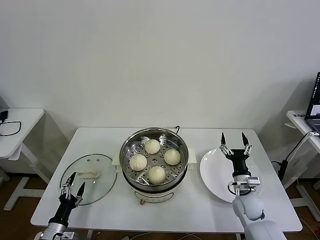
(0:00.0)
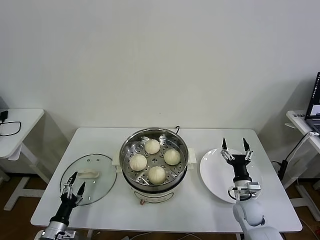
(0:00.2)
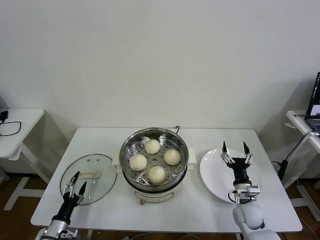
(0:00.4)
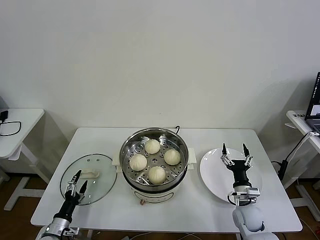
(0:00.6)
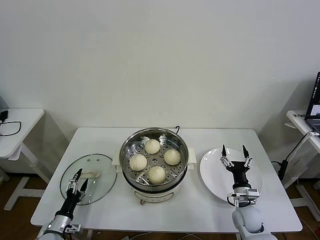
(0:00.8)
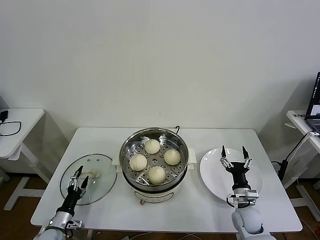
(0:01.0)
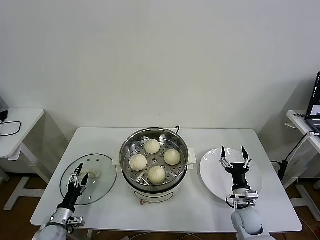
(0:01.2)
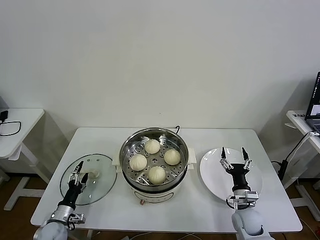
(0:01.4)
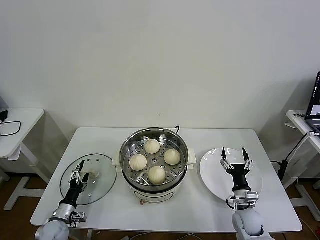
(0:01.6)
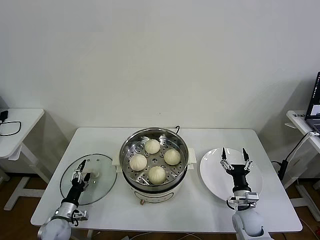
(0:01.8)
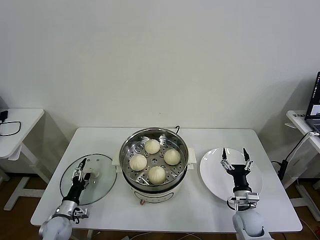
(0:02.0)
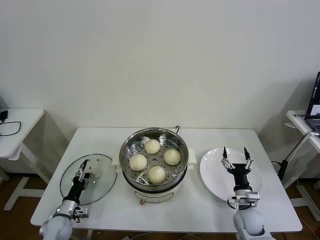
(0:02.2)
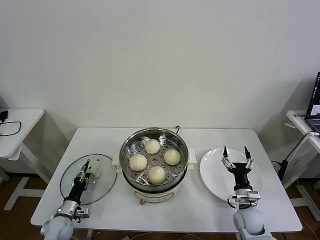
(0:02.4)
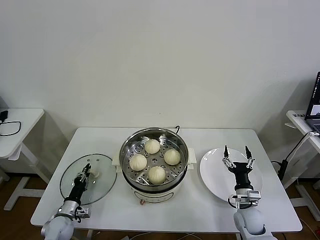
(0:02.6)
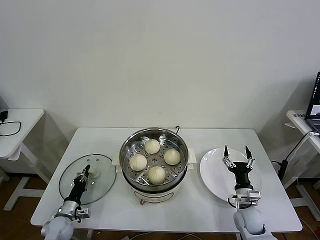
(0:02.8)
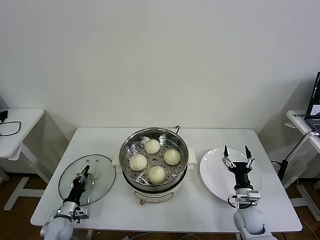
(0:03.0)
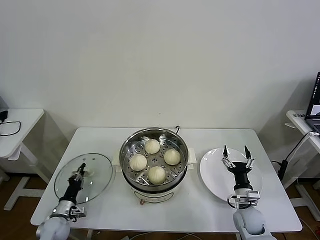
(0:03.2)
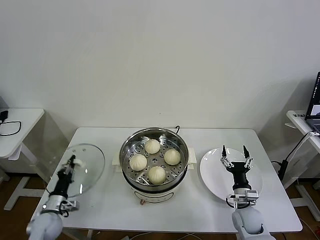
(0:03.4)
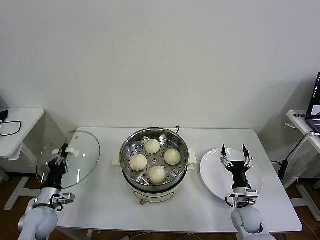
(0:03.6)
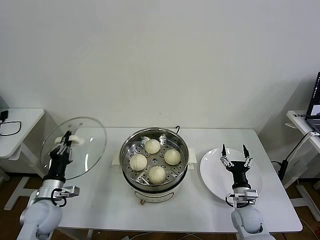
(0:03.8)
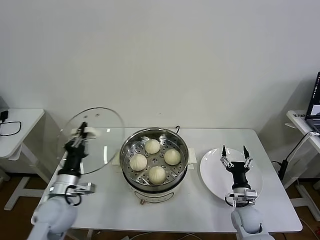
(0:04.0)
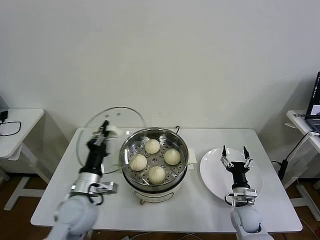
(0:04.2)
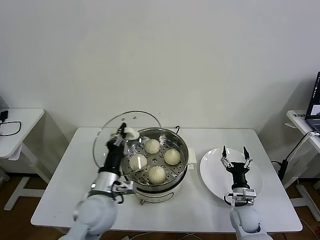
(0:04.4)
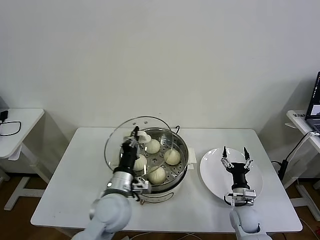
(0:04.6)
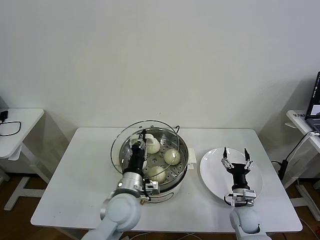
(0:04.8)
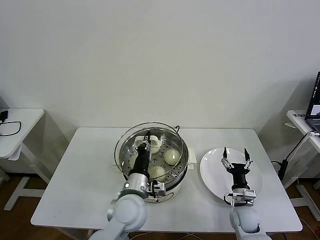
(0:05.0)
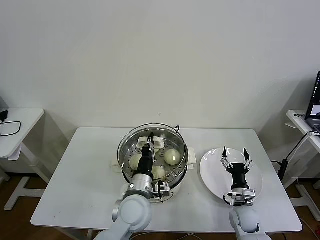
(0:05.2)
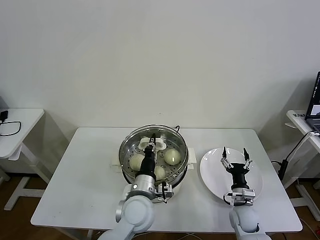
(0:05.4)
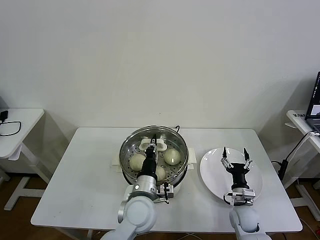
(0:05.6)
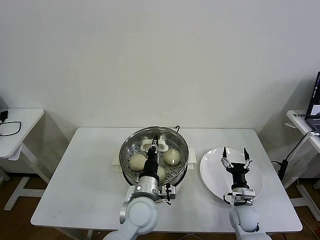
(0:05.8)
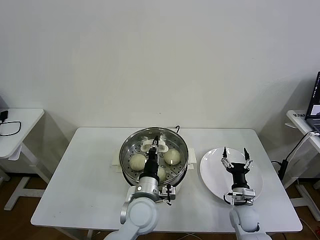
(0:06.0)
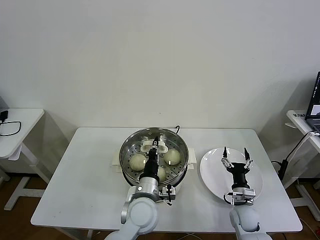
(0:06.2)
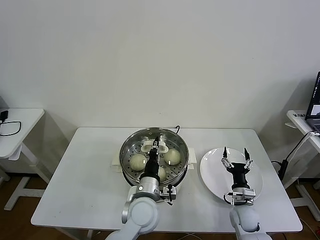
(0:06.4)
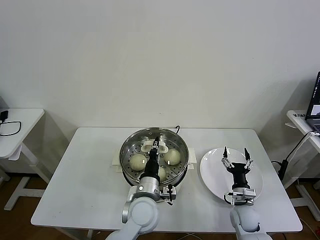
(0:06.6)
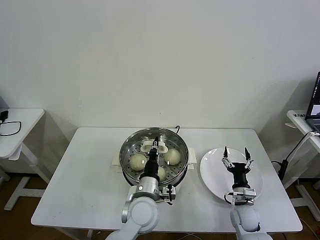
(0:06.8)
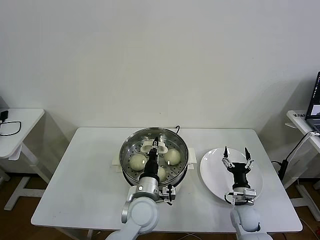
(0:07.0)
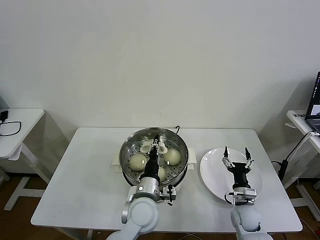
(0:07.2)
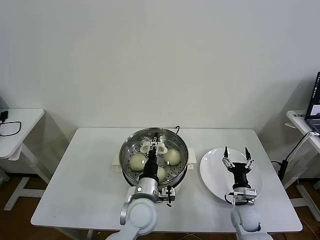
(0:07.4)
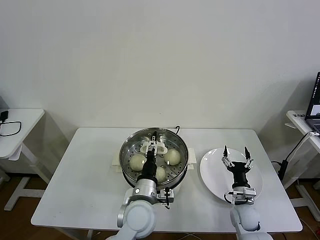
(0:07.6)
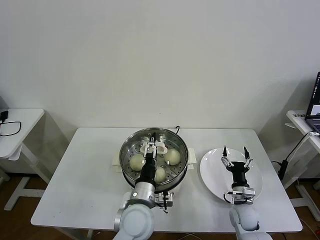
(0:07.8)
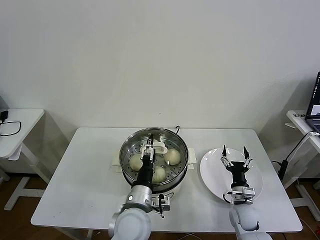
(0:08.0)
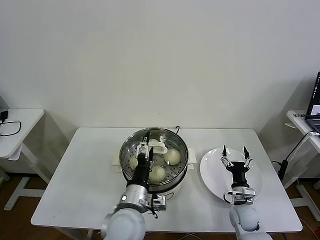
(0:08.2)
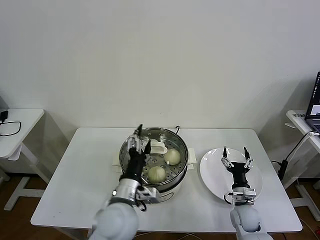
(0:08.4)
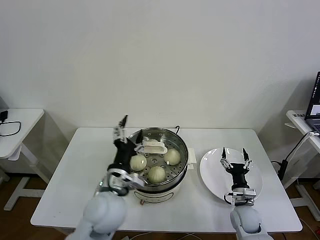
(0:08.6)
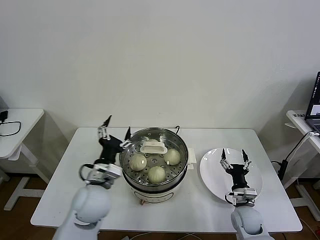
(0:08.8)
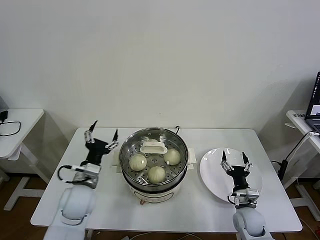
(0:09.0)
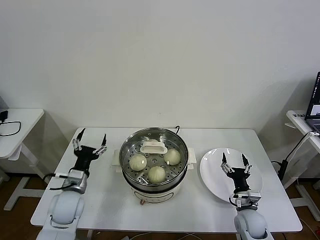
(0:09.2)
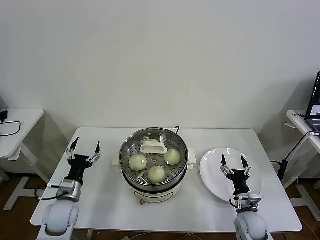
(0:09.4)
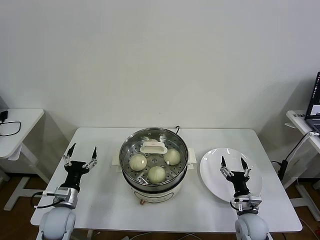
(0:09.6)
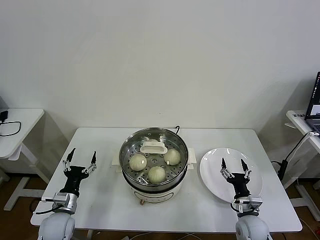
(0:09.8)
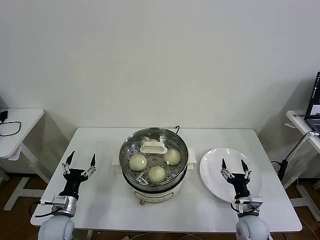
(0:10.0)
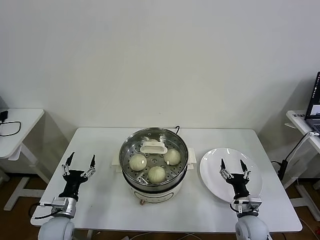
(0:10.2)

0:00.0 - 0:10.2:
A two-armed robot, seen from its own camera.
Task of the whole recording: take steamed baozi put them in steamer then cover it.
Step, 0:00.0 - 0:03.0: Grasp the pot lid with left gripper.
Step, 0:03.2 - 0:07.6: Place the pot lid on the steamer with left gripper.
0:00.0 - 0:01.4: The left gripper heads forward, covering approximately 5 cm, while the right gripper changes place by about 5 cm.
0:01.4 - 0:03.0: The left gripper closes its fingers.
0:03.0 - 0:04.4: The left gripper moves upward and to the right, roughly 30 cm.
0:04.4 - 0:05.8: The left gripper travels to the right by approximately 10 cm.
0:05.8 - 0:07.2: The grippers make only small movements.
0:07.2 - 0:08.8: The left gripper heads to the left and upward, covering roughly 15 cm, and opens.
0:08.8 - 0:10.2: The left gripper travels to the left and downward by roughly 25 cm.
